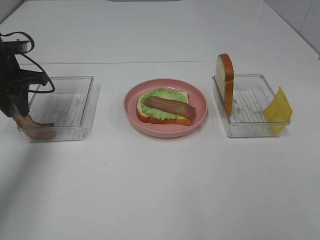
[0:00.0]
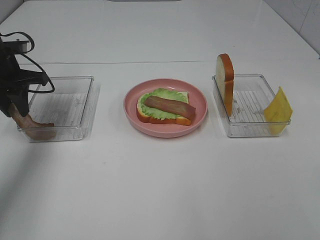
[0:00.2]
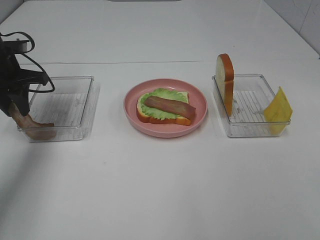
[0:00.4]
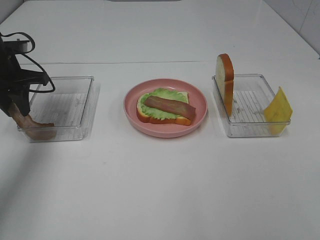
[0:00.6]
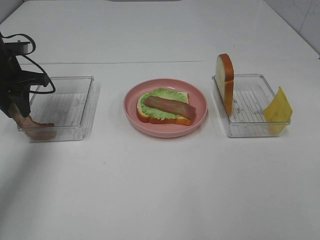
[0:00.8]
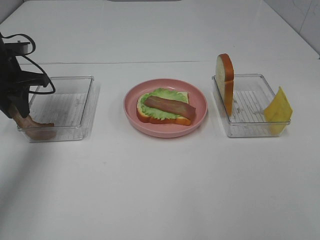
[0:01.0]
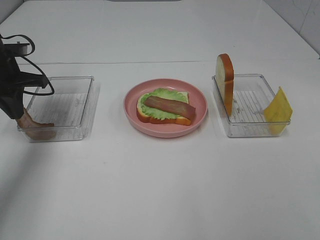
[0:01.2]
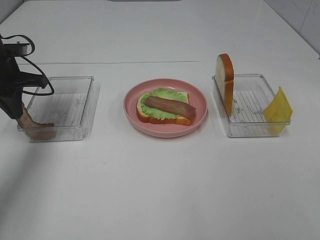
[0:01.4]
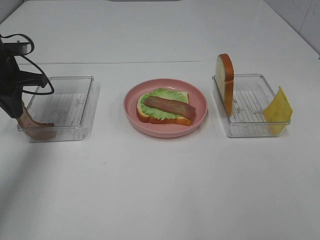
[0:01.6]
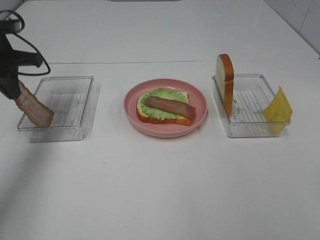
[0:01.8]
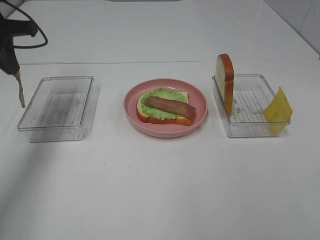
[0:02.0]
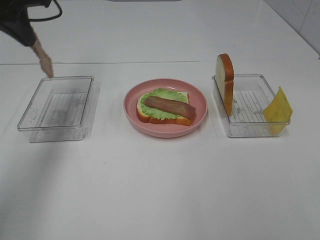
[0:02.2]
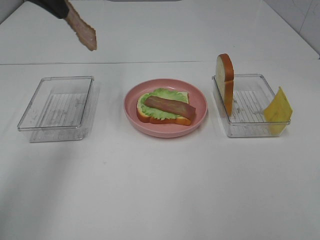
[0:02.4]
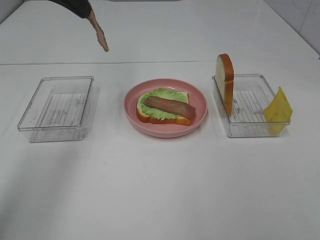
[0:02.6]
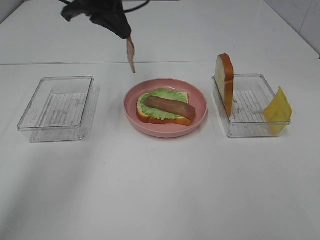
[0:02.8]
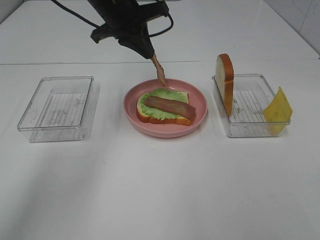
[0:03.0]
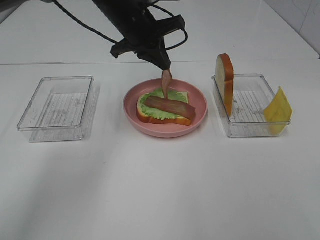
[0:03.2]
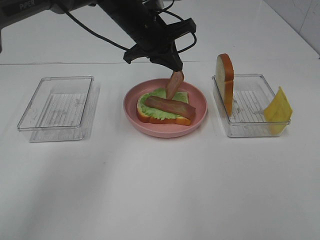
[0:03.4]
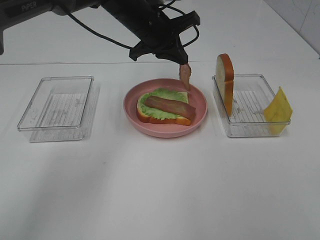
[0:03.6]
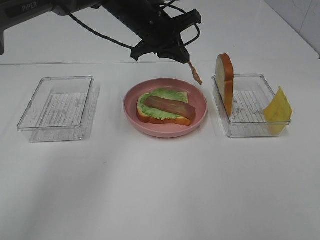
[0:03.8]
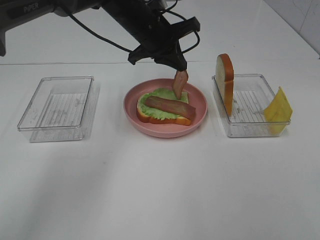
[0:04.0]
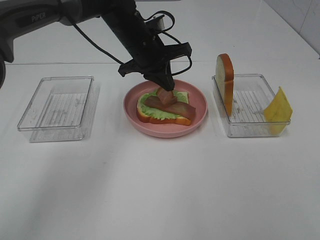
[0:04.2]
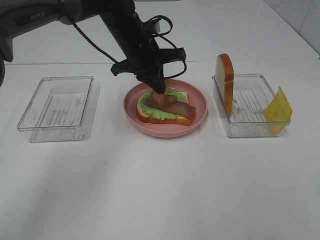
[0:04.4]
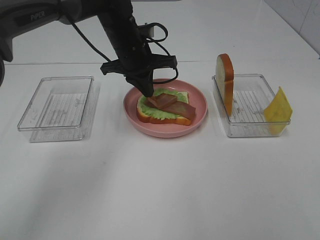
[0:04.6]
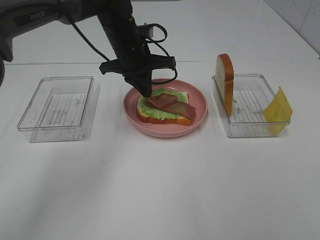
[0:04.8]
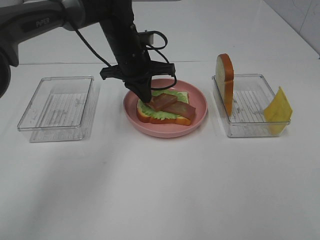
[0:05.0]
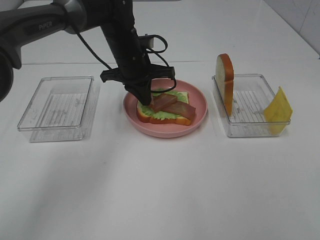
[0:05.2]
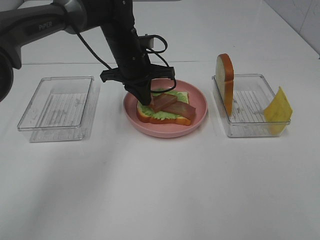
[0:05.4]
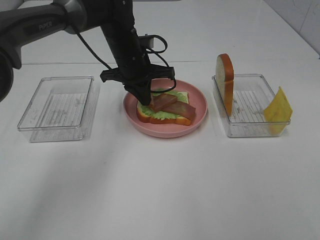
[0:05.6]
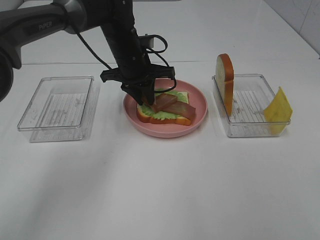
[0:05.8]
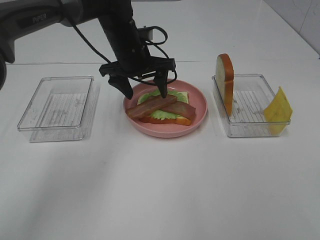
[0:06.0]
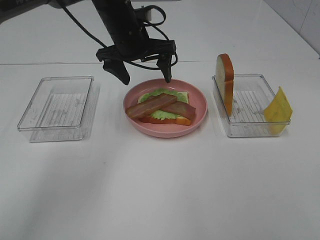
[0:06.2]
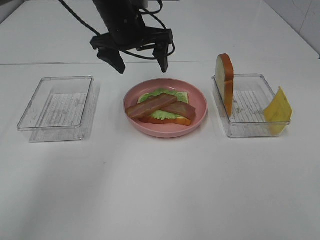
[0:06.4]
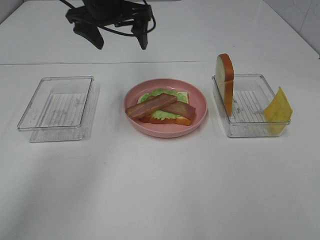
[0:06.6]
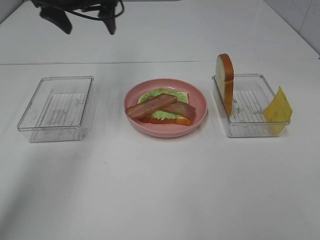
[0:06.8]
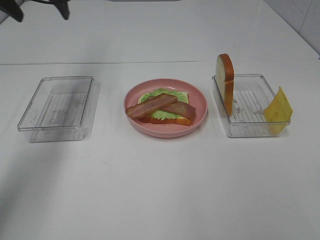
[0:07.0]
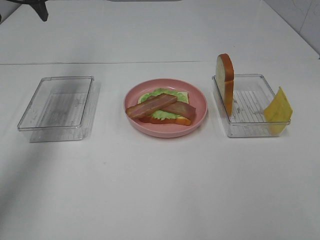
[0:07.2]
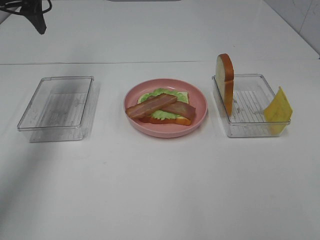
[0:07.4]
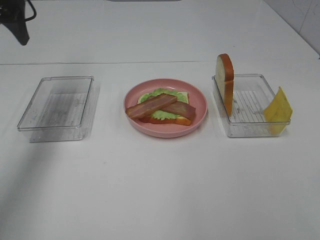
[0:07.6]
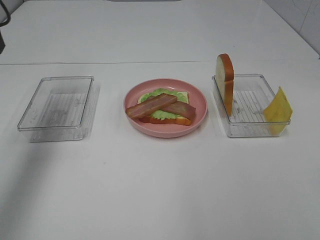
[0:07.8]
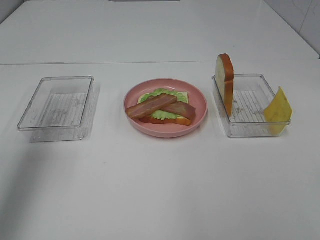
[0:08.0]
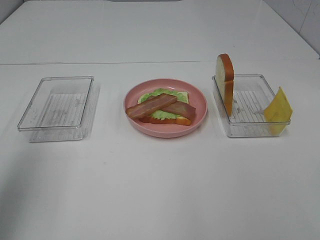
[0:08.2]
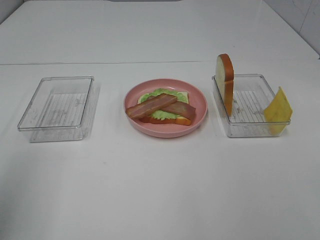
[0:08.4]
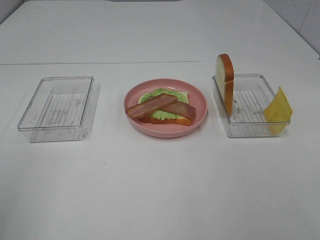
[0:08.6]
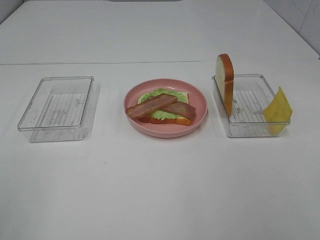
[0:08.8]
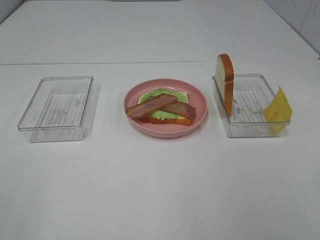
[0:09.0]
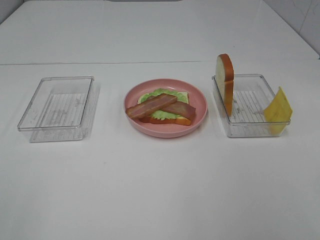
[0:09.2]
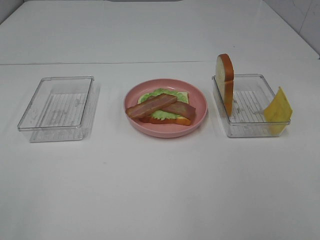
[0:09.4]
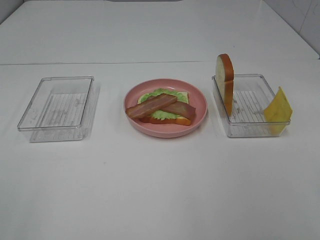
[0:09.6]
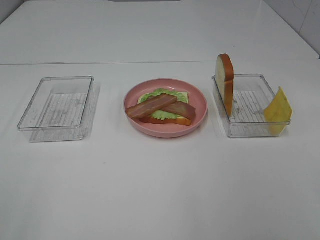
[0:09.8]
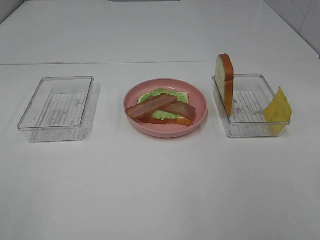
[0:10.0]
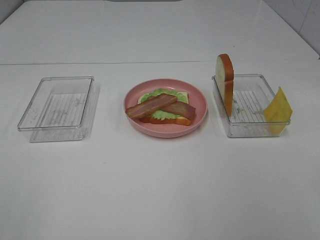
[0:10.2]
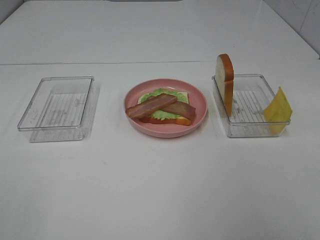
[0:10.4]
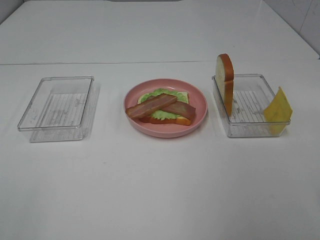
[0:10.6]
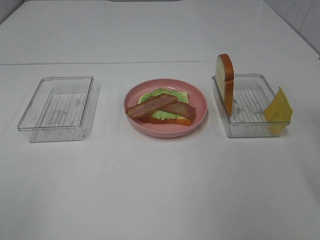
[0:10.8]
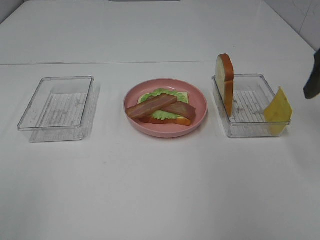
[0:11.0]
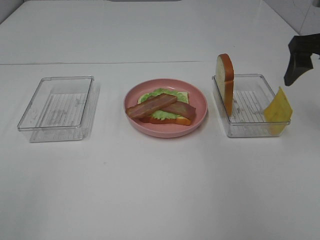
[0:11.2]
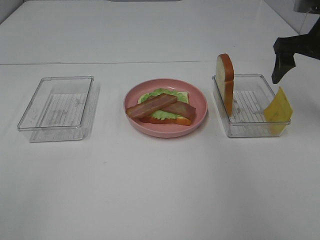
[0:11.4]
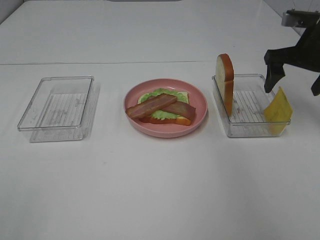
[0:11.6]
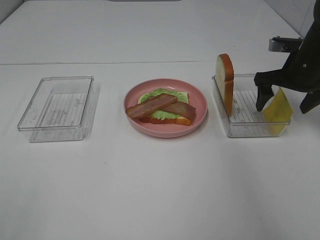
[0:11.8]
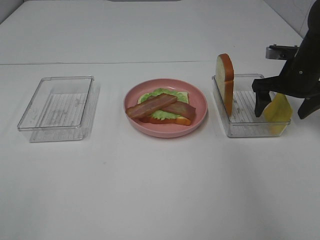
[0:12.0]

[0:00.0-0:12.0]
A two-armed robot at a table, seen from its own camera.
Task of the whole recording: Make sandwiches.
Step, 0:01.8 to 0:06.0: Left hand:place bacon on bacon.
0:00.0 to 0:01.6: Both grippers stay about where they are.
0:01.6 to 0:03.0: The left gripper shifts roughly 20 cm to the right.
0:03.0 to 0:04.4: The left gripper shifts roughly 10 cm downward.
0:04.4 to 0:06.0: The left gripper opens.
0:06.0 to 0:07.6: The left gripper heads to the left and upward, covering roughly 30 cm.
0:07.6 to 0:09.0: The left gripper is displaced backward by roughly 40 cm.
0:10.4 to 0:12.0: The right gripper goes roughly 40 cm forward and downward.

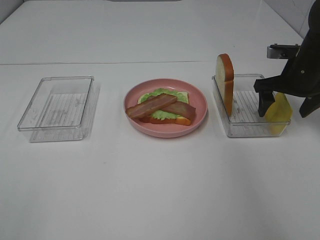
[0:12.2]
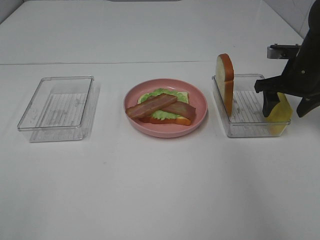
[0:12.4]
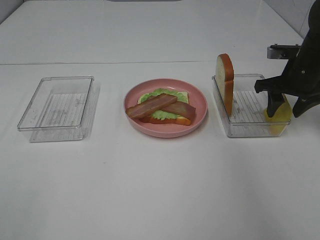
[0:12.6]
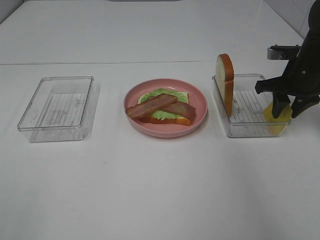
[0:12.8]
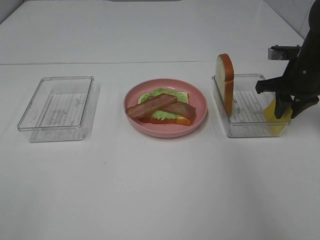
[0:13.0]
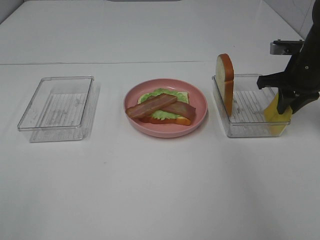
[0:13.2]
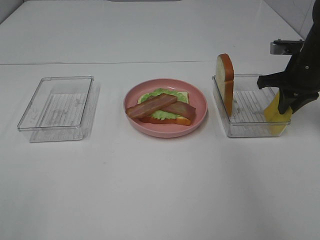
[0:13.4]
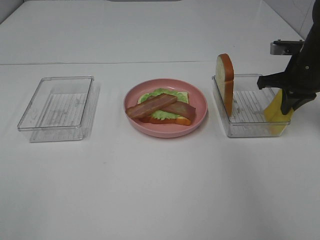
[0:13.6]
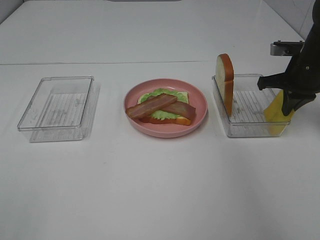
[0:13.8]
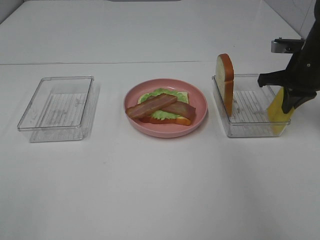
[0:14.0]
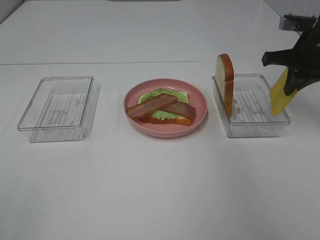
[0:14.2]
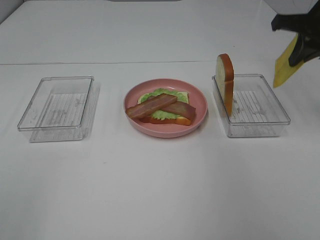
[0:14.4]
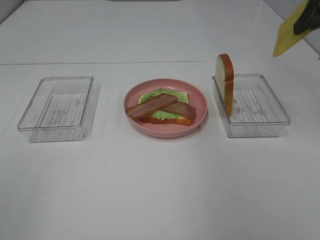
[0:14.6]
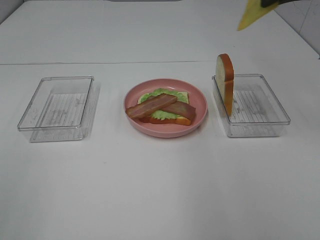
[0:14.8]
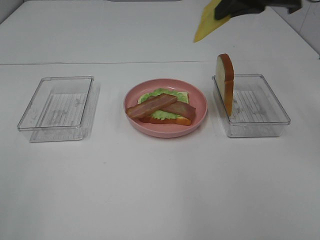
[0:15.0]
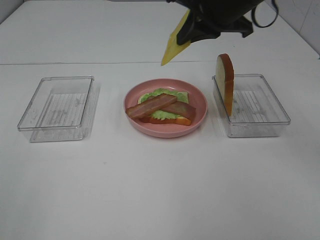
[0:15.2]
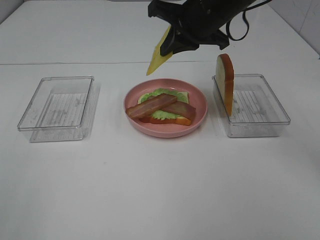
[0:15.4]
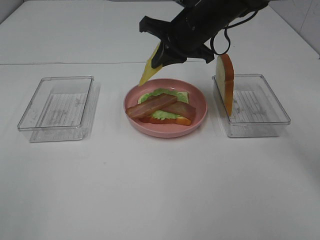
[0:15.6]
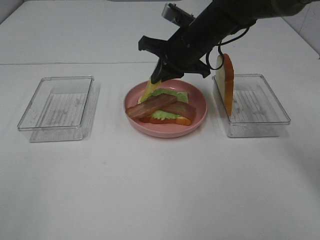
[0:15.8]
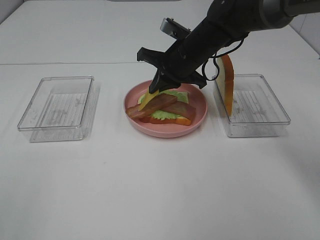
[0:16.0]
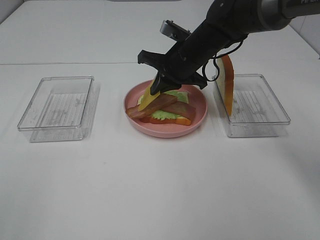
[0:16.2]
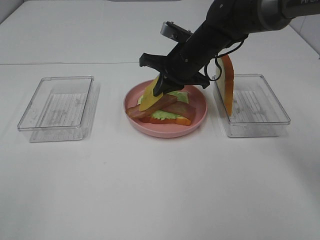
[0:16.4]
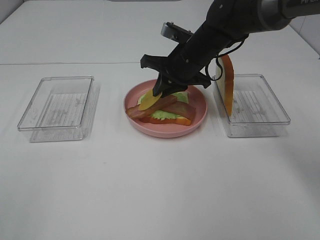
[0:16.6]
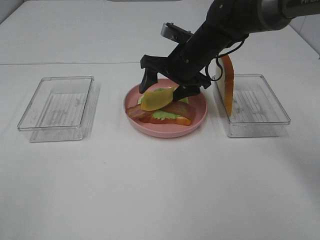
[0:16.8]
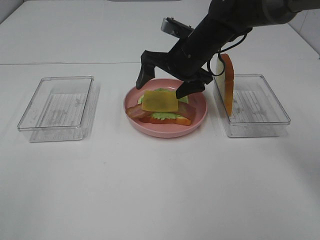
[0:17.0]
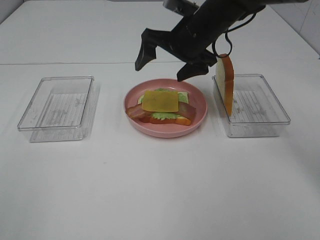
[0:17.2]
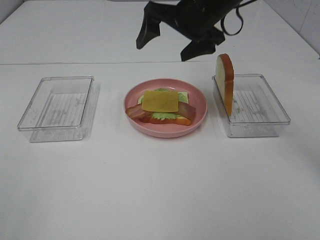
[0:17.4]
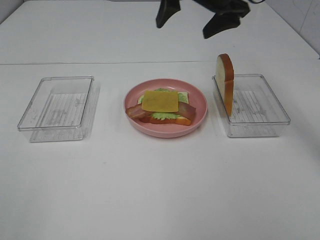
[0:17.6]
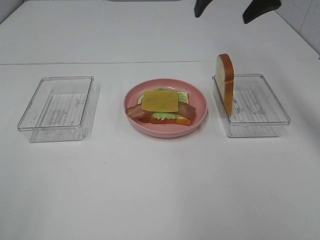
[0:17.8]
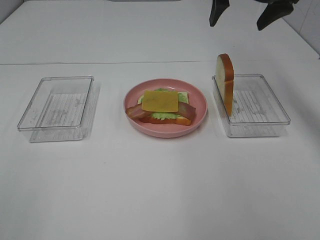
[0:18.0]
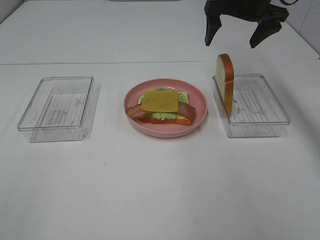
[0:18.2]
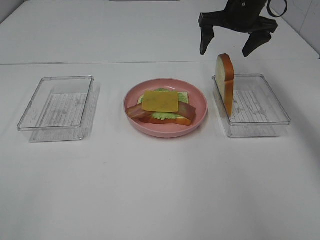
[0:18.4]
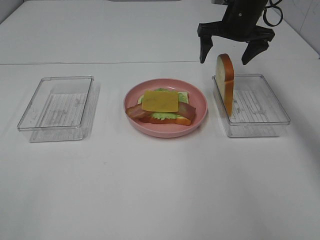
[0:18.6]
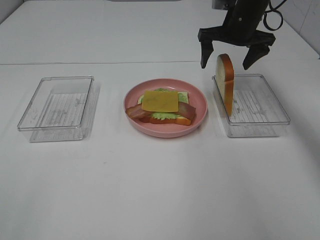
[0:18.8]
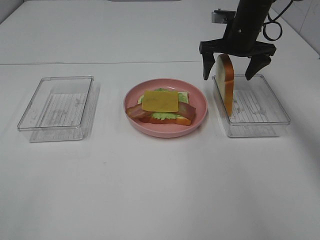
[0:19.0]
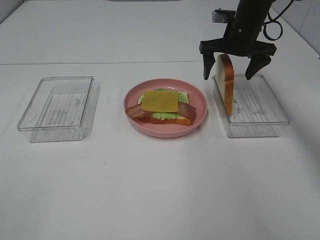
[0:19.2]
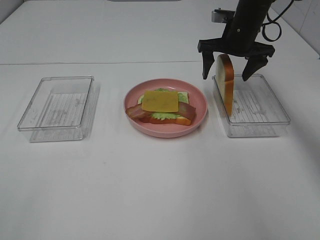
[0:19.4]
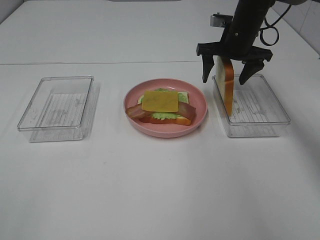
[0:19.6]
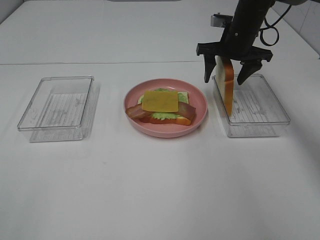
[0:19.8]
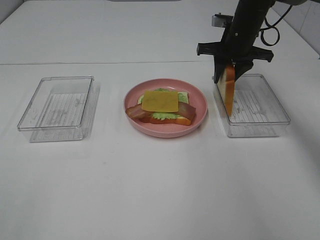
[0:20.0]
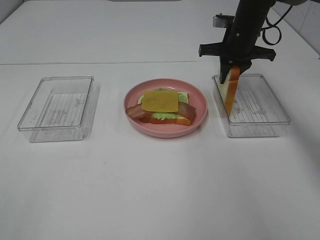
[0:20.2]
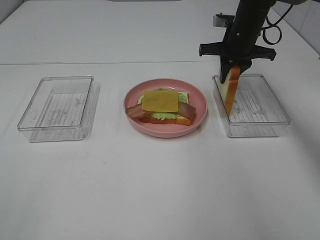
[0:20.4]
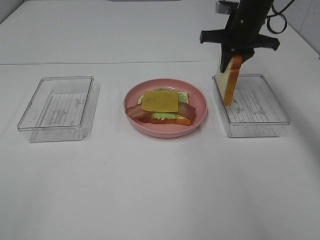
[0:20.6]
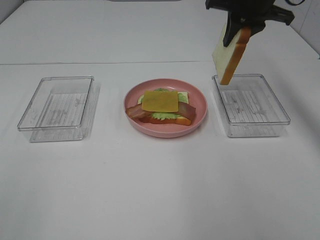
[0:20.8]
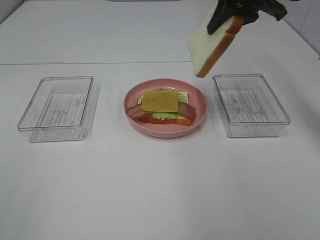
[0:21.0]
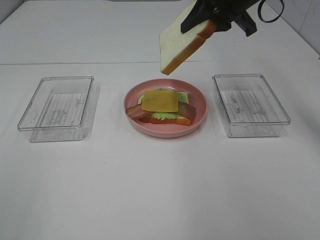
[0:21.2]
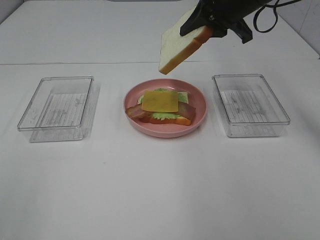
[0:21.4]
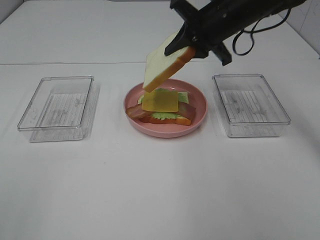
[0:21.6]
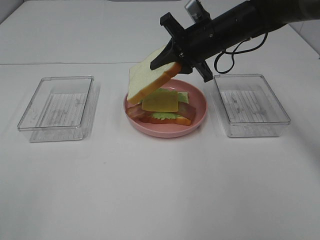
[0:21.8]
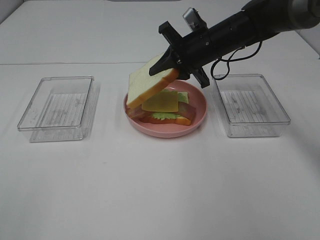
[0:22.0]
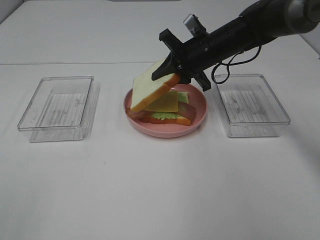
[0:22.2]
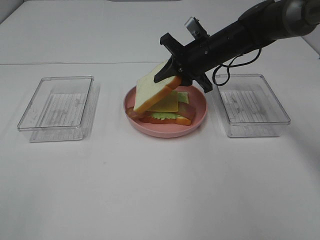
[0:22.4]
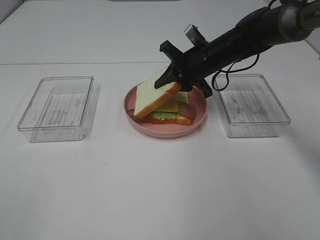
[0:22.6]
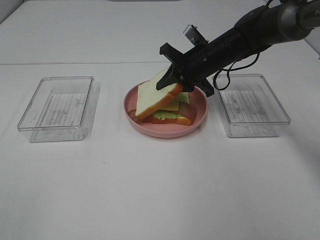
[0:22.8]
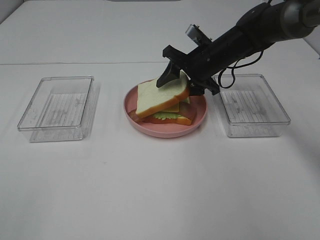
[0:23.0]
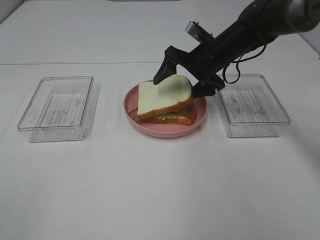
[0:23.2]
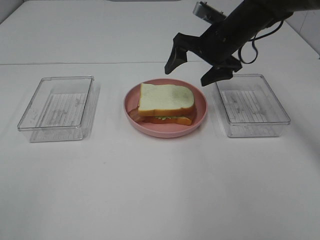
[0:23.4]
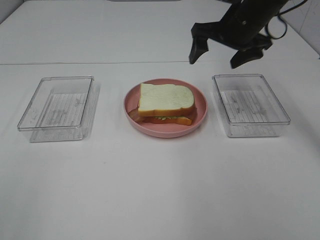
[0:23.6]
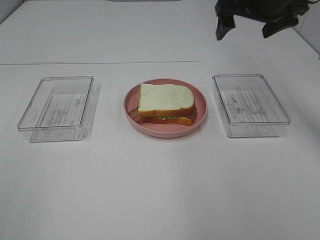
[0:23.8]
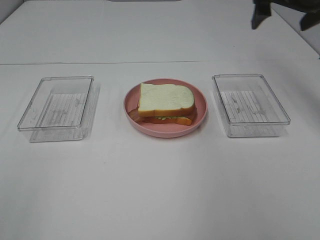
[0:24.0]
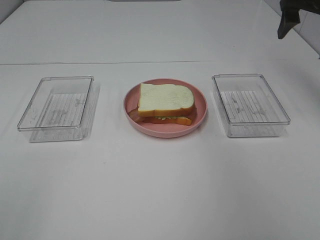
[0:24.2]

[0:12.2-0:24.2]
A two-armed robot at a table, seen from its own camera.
Task of the whole recording: Make sandwiches.
Step, 0:14.2 to 0:17.0: Right hand:place the cheese slice on top of the bacon.
Step, 0:17.2 to 0:20.2: Right hand:grab the bread slice.
Step, 0:20.4 to 0:23.4: Right hand:place the bread slice on the cheese slice.
0:12.2 to 0:13.8: The right gripper closes up.
0:13.8 to 0:15.2: The right gripper travels to the left and upward by roughly 20 cm.
0:15.2 to 0:16.6: The right gripper shifts about 15 cm downward and forward.
0:16.6 to 0:18.2: The right gripper goes some 15 cm upward, to the right and forward, and opens.
0:18.2 to 0:19.8: The right gripper heads downward, covering about 10 cm.
0:19.8 to 0:21.2: The right gripper moves upward and backward, some 15 cm, and closes up.
0:21.2 to 0:22.6: The right gripper moves downward, about 15 cm.
0:22.6 to 0:24.2: The right gripper shifts about 25 cm to the right and upward, and opens up.
